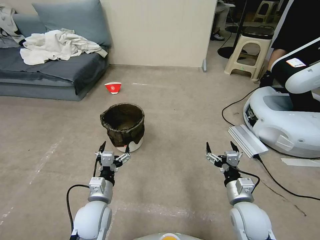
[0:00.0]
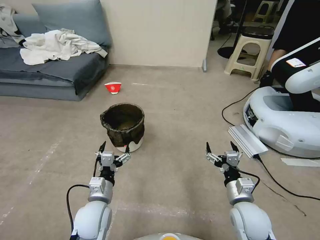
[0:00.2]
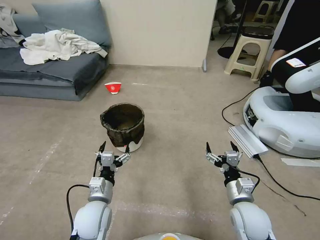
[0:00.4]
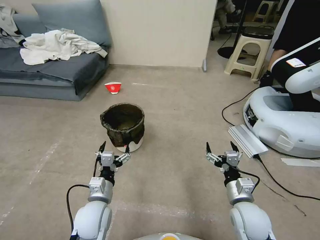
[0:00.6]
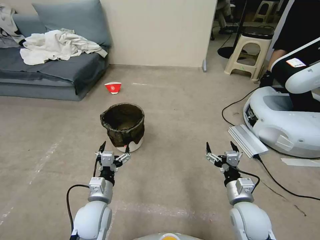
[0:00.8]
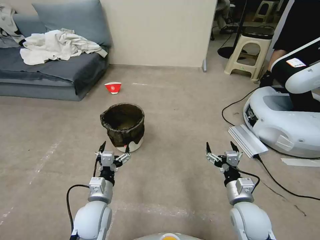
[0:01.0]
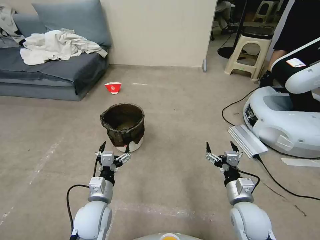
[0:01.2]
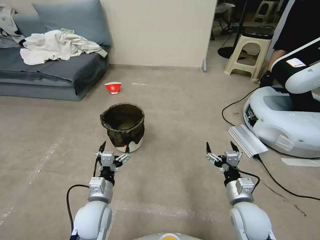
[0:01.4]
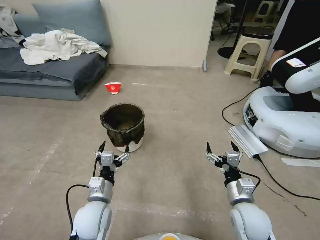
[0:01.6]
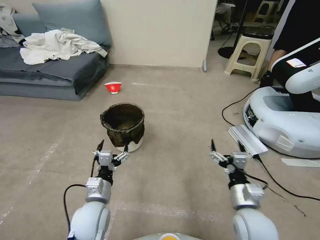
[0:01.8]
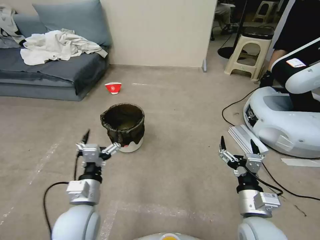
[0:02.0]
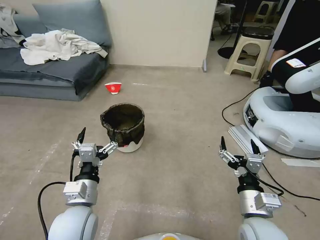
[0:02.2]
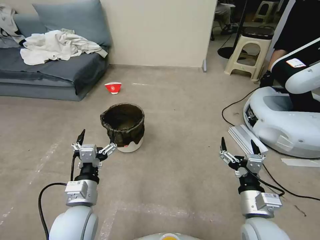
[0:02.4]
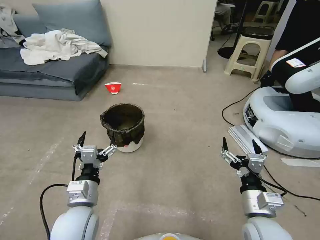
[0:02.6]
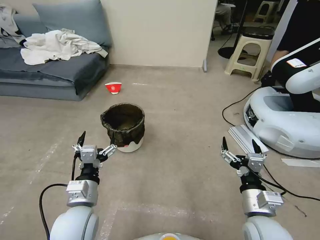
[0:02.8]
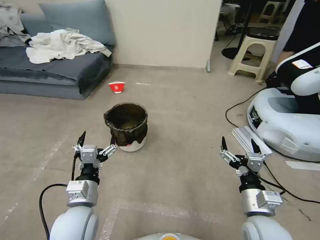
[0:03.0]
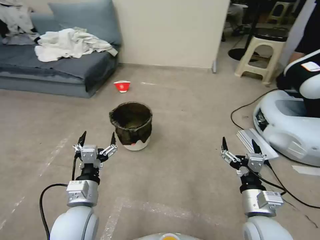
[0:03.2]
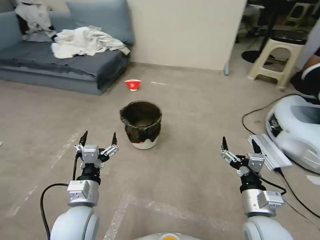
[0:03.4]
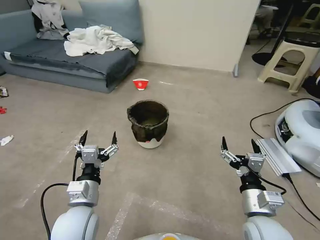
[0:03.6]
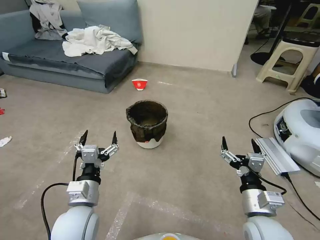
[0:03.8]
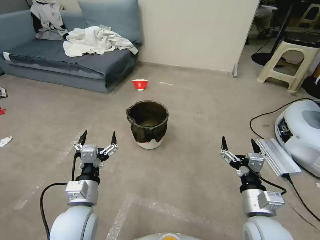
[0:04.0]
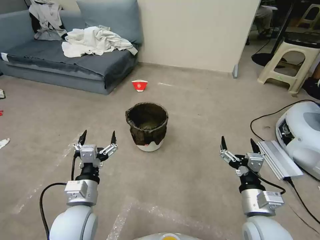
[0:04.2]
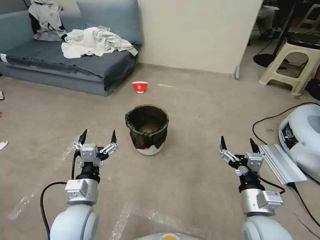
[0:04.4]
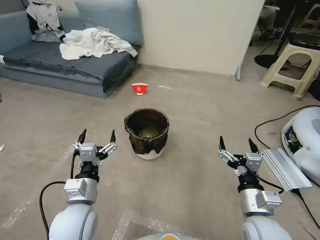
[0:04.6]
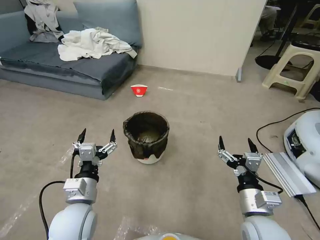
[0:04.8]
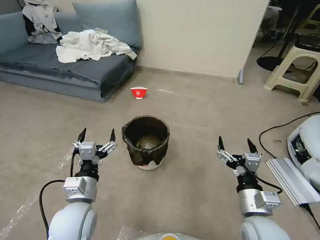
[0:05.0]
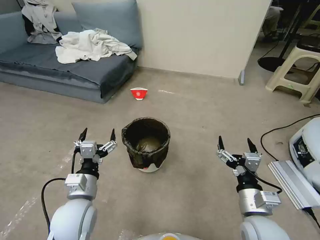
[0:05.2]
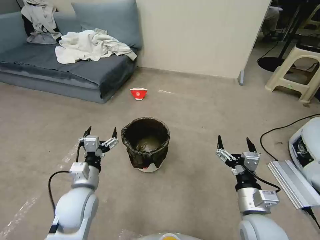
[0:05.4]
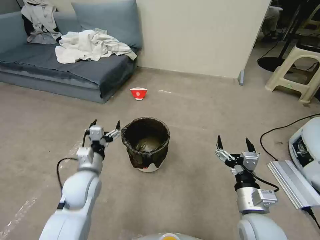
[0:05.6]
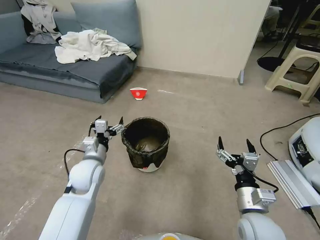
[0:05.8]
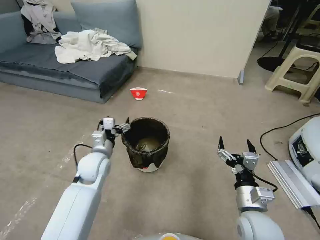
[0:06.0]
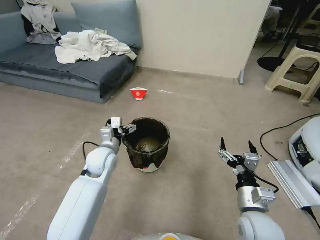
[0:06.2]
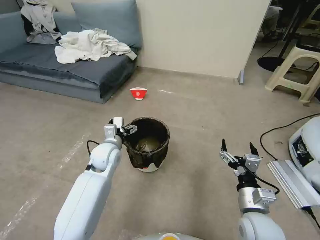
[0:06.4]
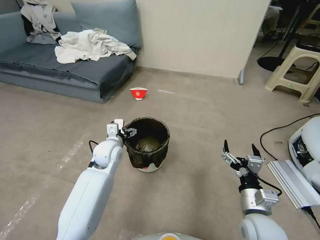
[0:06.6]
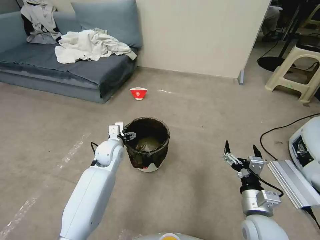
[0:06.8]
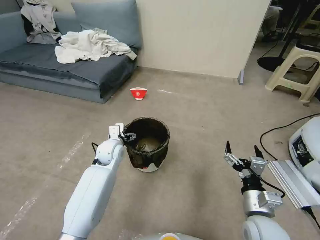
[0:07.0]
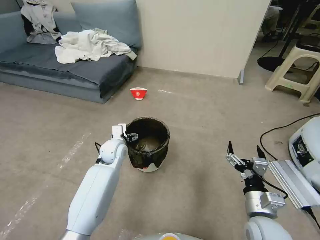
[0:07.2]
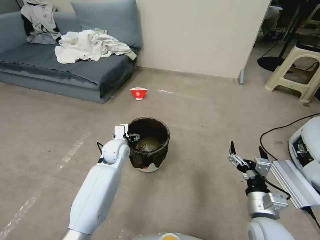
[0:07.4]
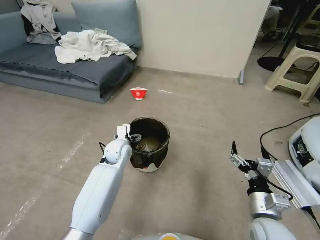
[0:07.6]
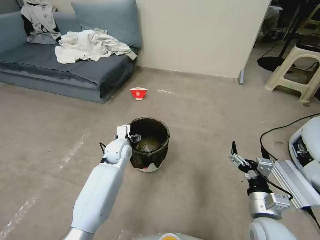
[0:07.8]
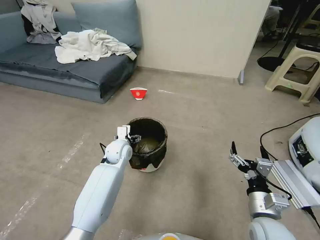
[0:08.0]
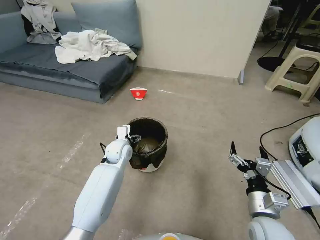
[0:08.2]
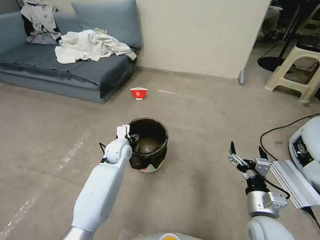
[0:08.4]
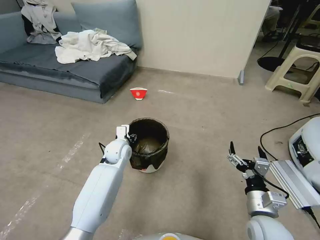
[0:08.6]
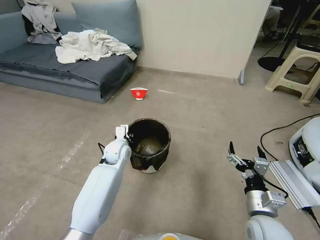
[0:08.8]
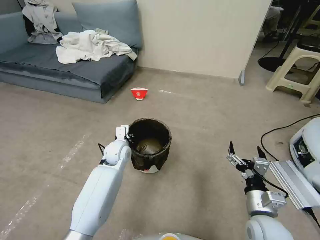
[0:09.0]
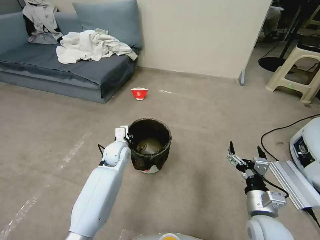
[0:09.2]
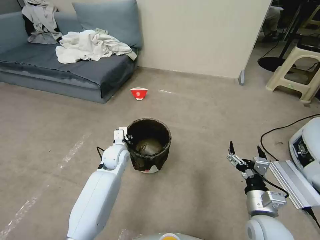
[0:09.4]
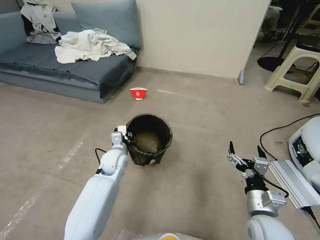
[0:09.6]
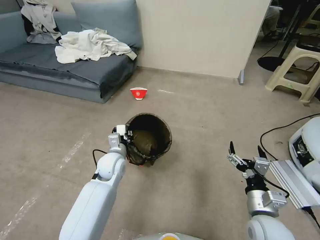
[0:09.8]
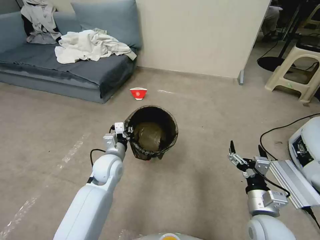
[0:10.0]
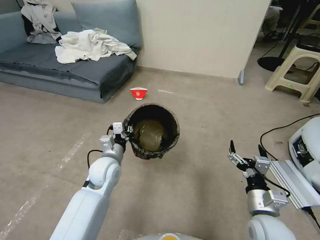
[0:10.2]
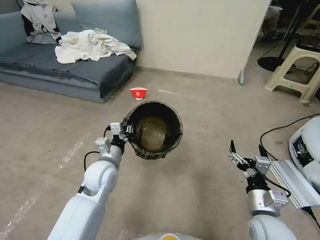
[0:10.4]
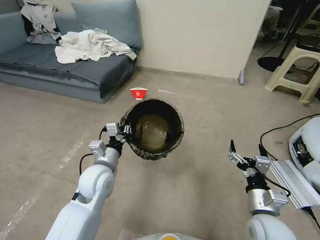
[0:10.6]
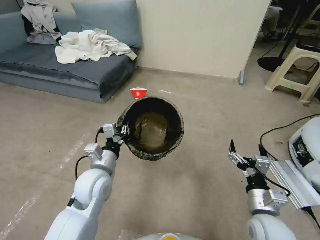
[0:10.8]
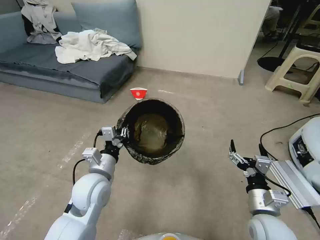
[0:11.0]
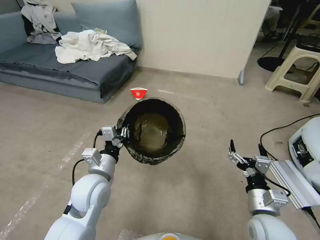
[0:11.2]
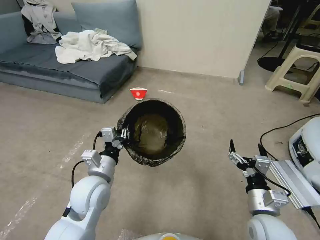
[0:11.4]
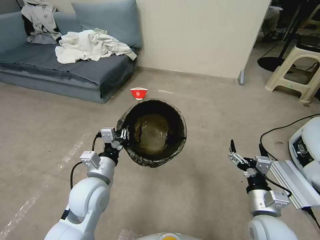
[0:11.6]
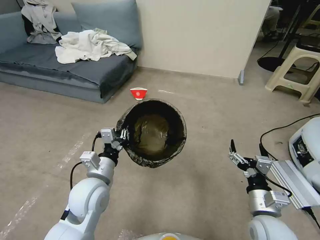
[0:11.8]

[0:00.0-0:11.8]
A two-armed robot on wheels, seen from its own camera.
Task of the whole recording: Pick up the trash can from the floor.
0:01.4 to 0:03.0: The two grippers go about 5 cm upward.
0:04.4 to 0:06.0: The left gripper is displaced forward by about 15 cm.
0:06.0 to 0:07.4: The left gripper moves forward and to the right, roughly 10 cm.
0:07.4 to 0:08.8: The left gripper closes up.
0:08.8 to 0:10.4: The left gripper heads backward, covering approximately 10 cm.
0:10.4 to 0:11.8: The left gripper goes about 5 cm backward.
